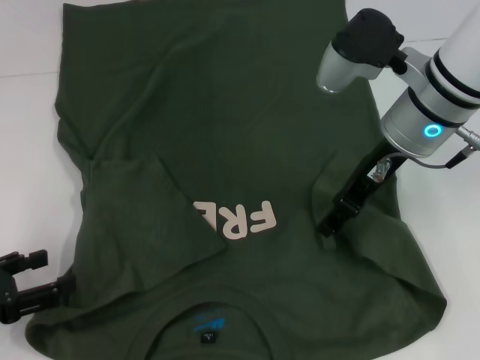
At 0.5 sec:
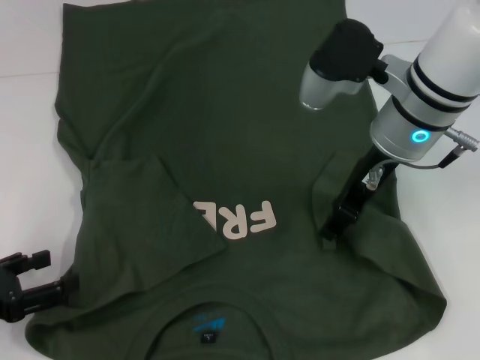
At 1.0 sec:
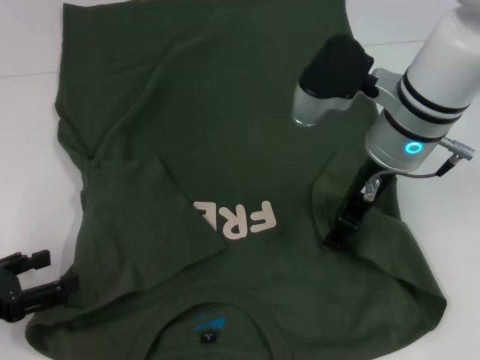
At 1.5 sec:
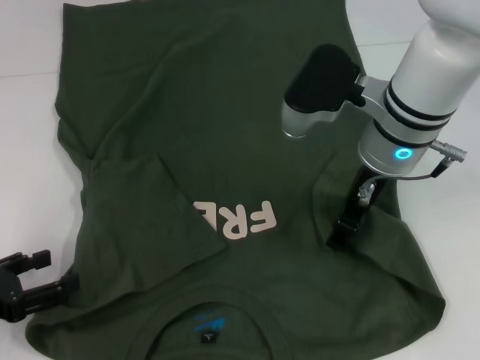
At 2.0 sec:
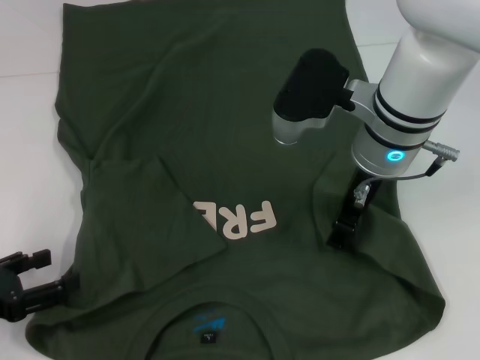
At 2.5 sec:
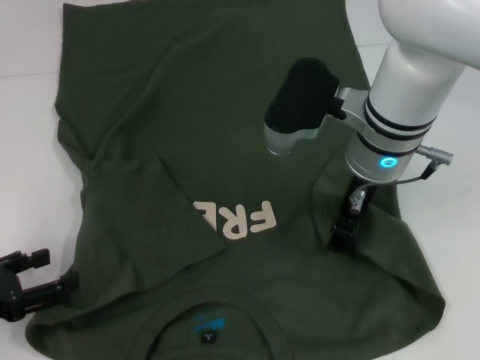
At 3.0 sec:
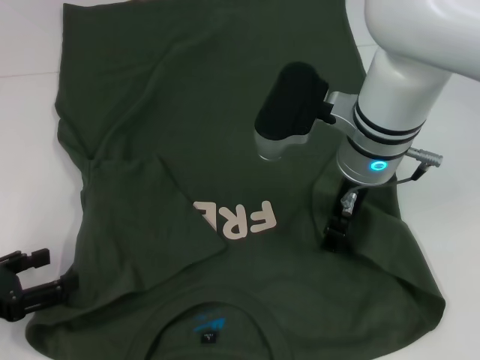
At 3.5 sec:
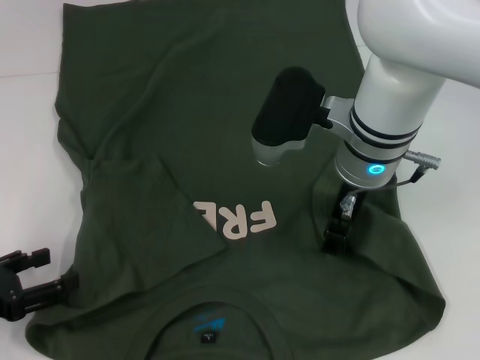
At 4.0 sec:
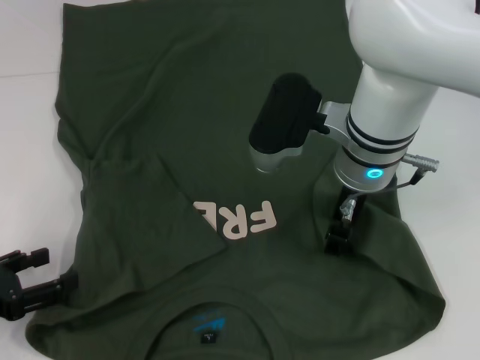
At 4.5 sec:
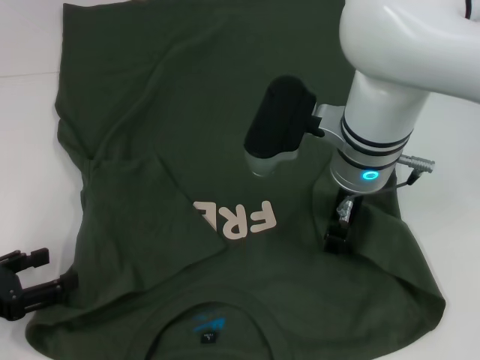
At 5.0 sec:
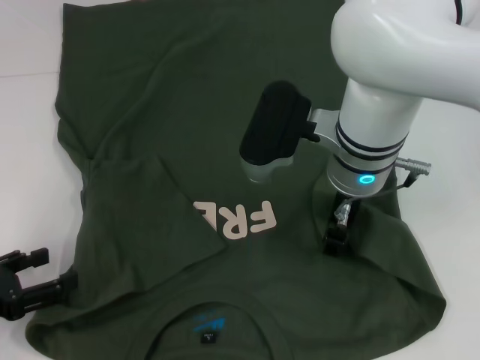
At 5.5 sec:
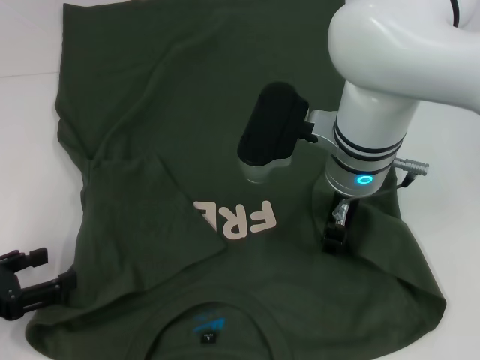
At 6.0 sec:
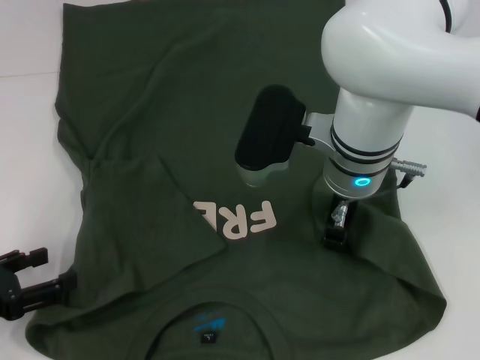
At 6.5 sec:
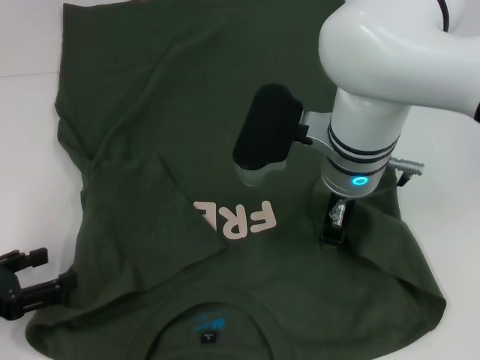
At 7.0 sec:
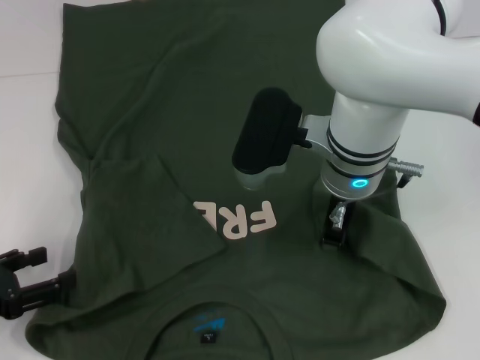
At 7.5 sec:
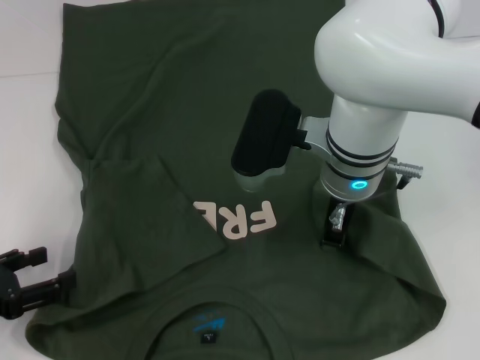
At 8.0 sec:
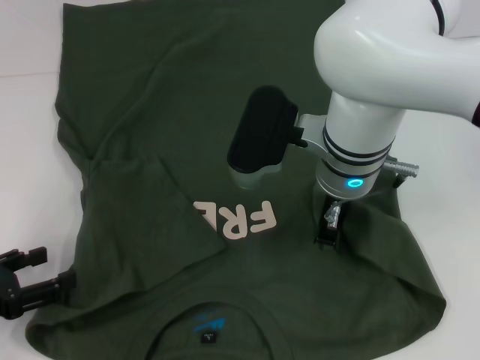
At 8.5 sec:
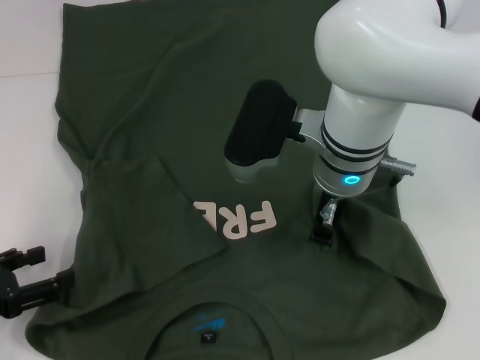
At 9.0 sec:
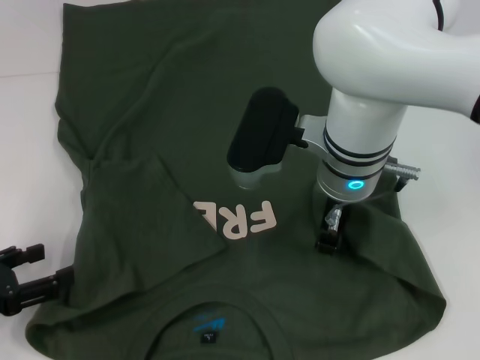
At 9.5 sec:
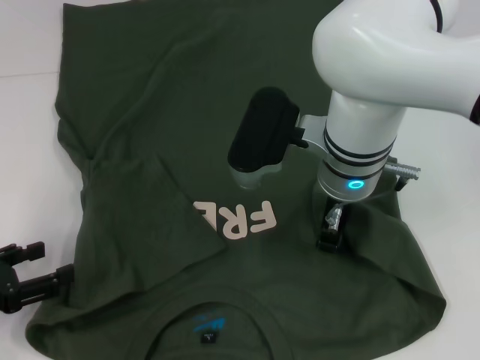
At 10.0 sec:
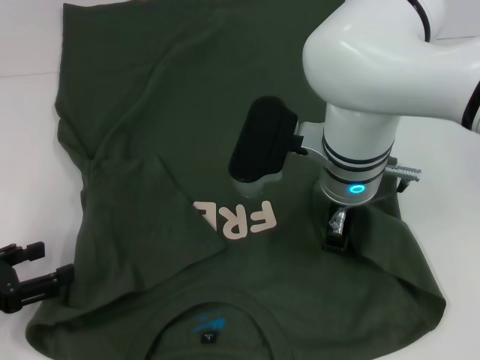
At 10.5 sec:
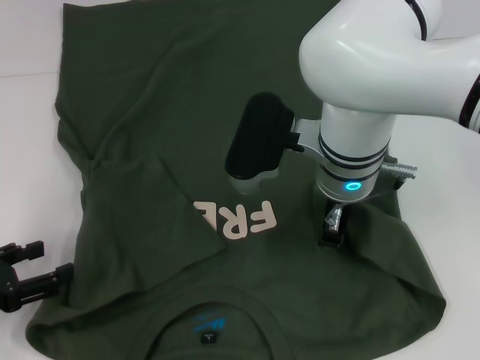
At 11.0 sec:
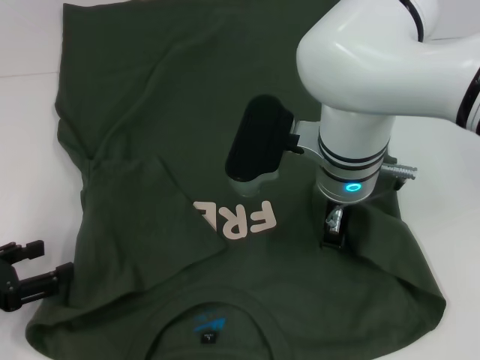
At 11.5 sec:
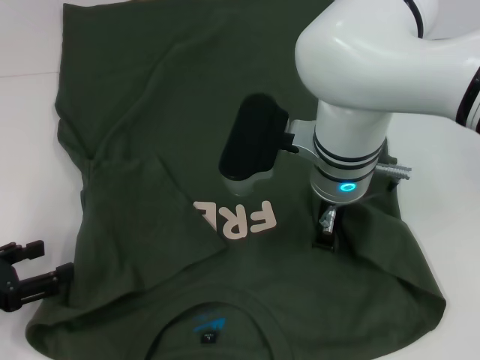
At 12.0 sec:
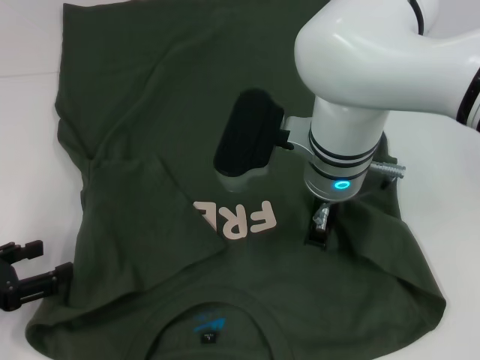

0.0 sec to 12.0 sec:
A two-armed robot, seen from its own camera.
0.0 sec to 2.0 sec: There are only small adjustments of the grippers.
2.0 sec to 6.0 sec: The grippers move only a little.
6.0 sec to 8.0 sec: The right gripper closes up.
8.0 sec to 12.0 sec: The two grippers keep their place.

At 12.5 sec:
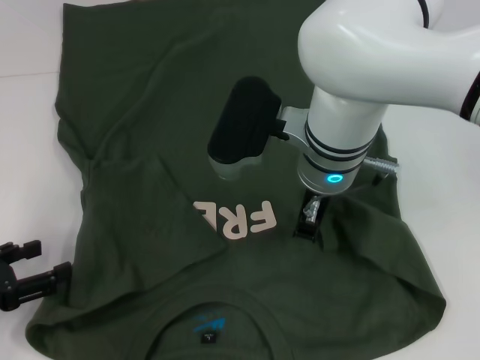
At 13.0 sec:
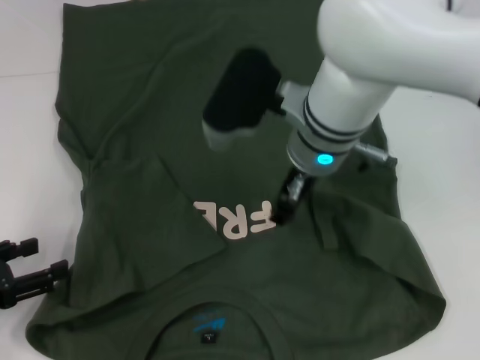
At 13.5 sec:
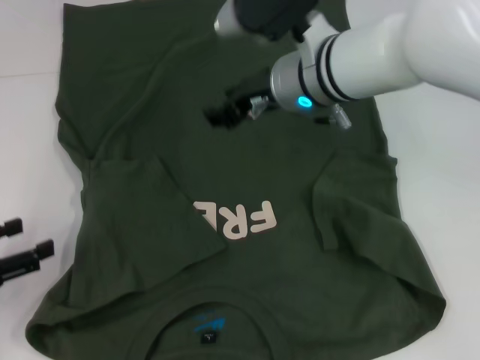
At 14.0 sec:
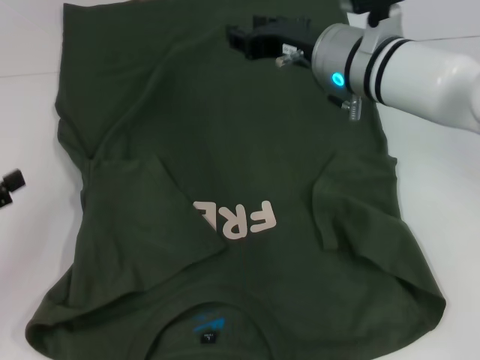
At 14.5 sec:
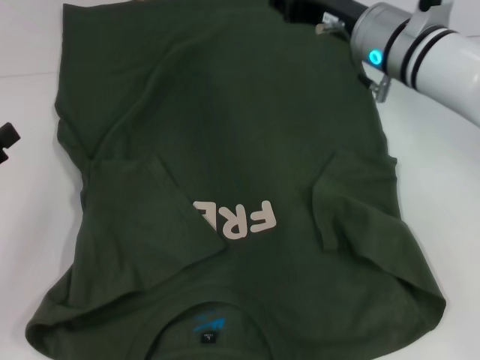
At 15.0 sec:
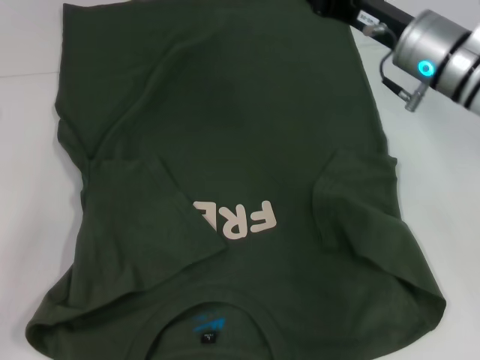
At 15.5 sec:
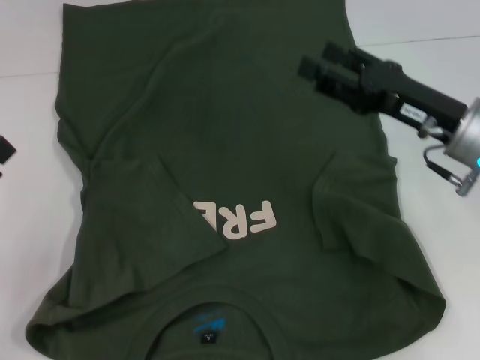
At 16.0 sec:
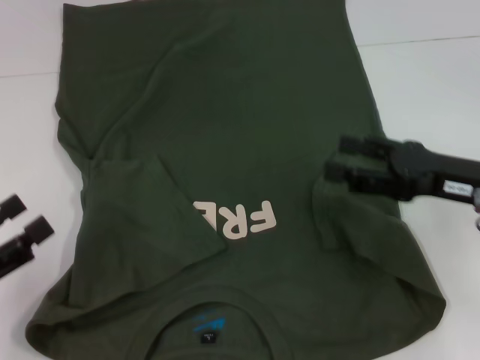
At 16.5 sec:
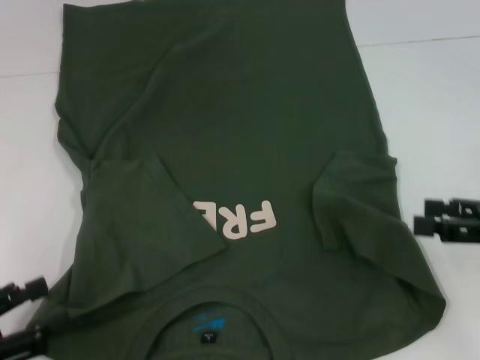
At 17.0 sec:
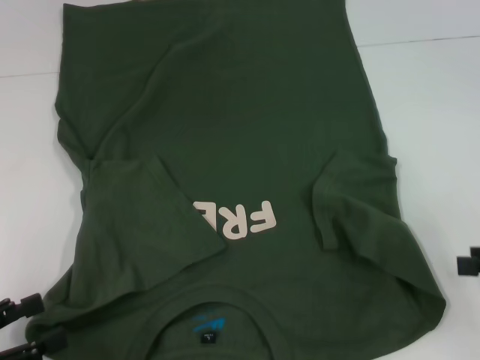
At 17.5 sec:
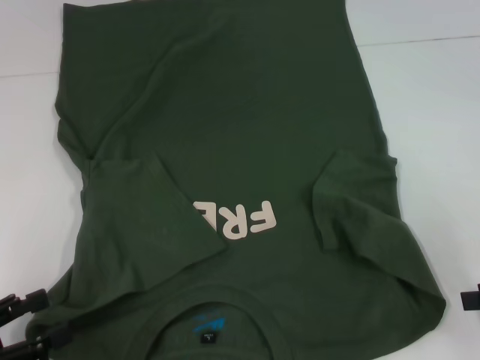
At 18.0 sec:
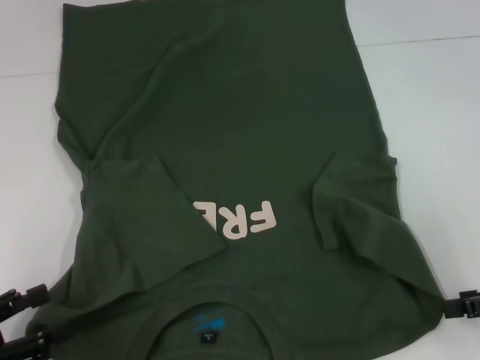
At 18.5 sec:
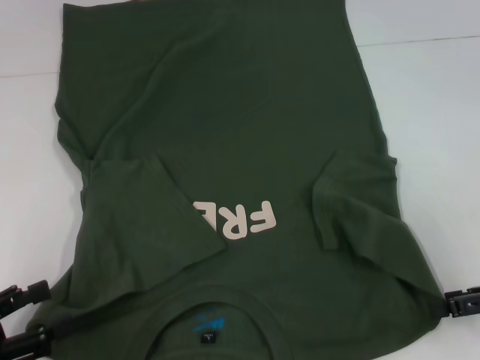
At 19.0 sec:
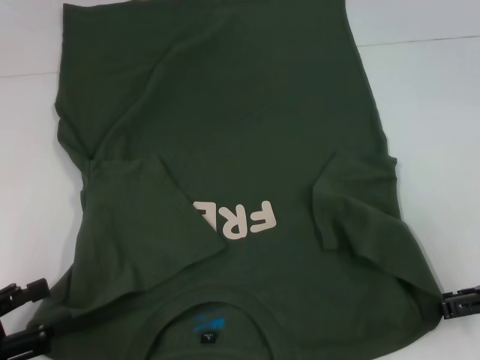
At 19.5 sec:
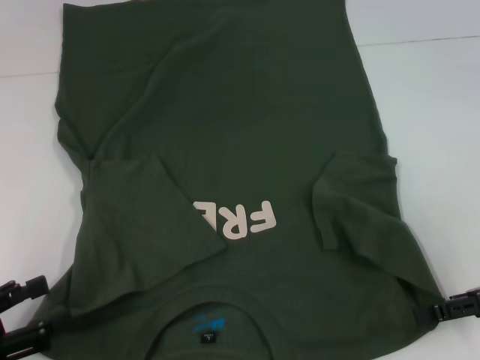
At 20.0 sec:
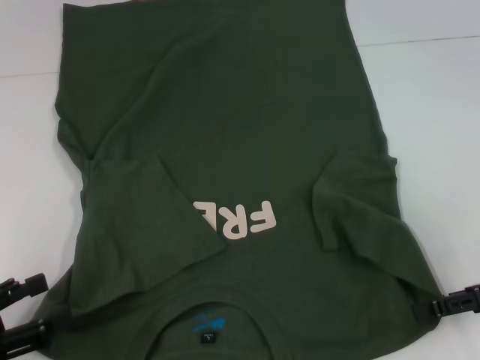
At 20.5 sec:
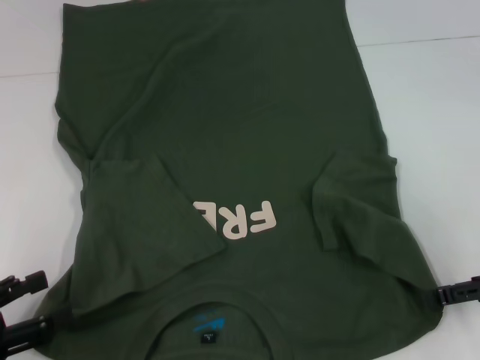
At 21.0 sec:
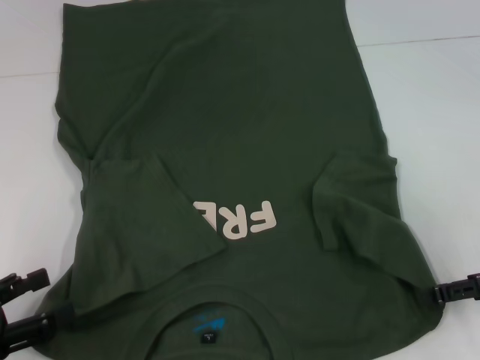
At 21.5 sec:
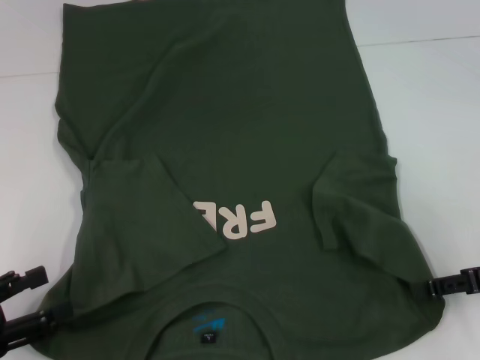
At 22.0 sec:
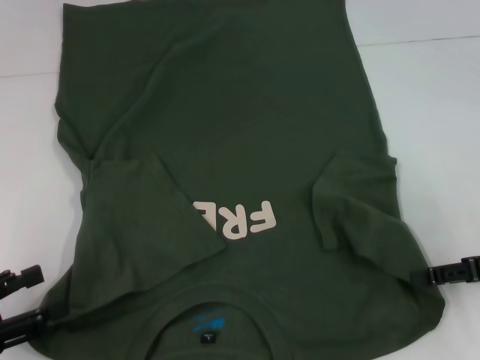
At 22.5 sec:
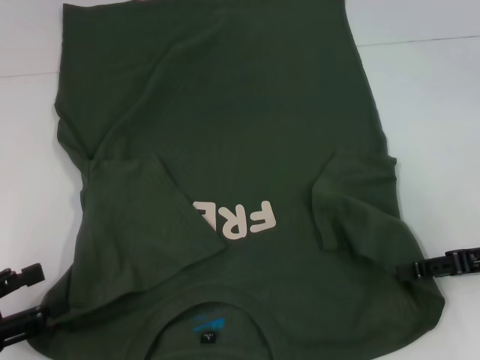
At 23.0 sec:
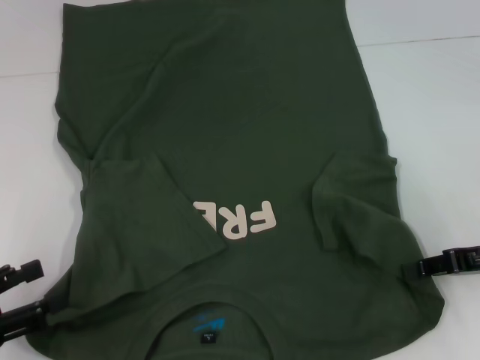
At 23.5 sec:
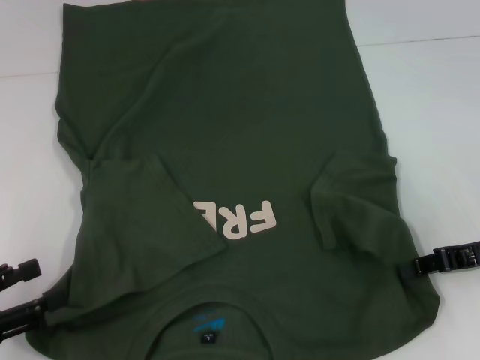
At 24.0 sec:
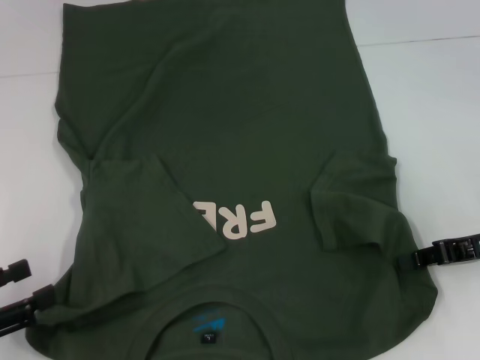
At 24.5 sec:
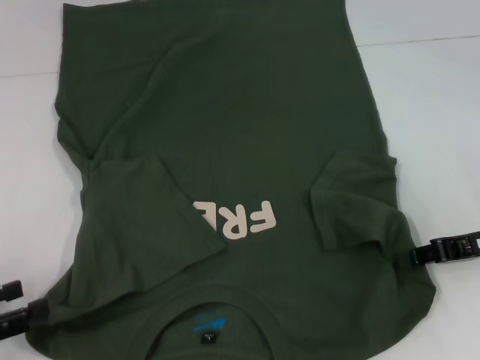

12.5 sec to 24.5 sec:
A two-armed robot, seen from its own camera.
Step, 12.5 sec to 24.0 sec: Grab the bottom right corner with your right hand.
12.5 sec to 14.5 sec: The right gripper shifts roughly 10 cm to the right and forward, and opens its fingers.
14.5 sec to 16.5 sec: The right gripper travels to the right and backward by approximately 25 cm, and opens its fingers. Meanwhile the left gripper travels backward by approximately 10 cm.
18.5 sec to 22.5 sec: The grippers make only small movements.
22.5 sec to 24.5 sec: The right gripper closes its fingers.

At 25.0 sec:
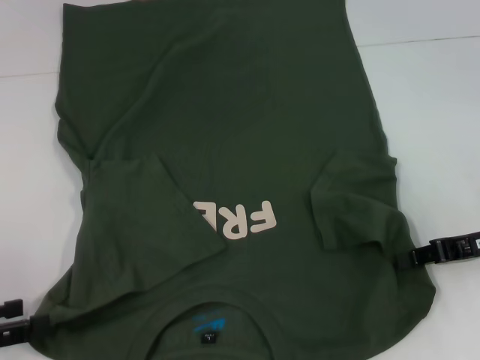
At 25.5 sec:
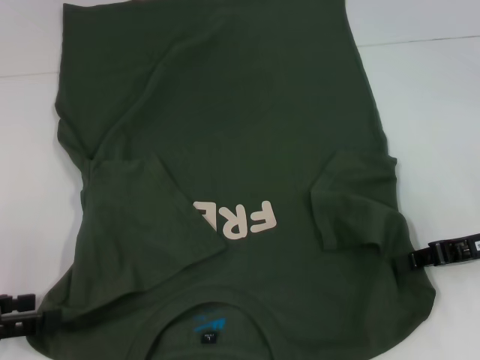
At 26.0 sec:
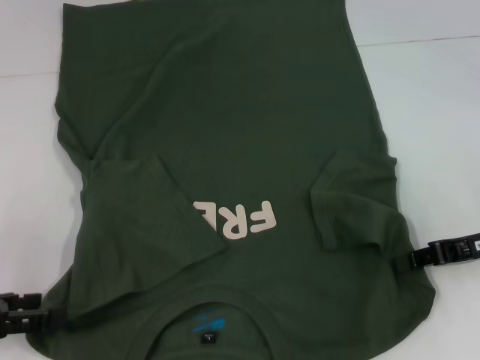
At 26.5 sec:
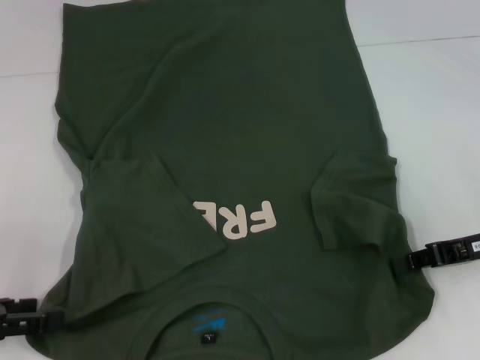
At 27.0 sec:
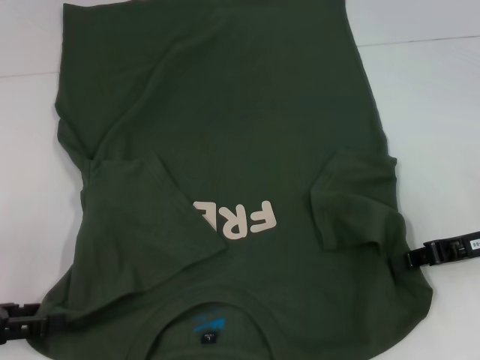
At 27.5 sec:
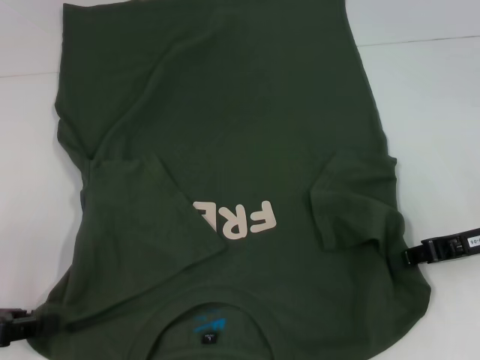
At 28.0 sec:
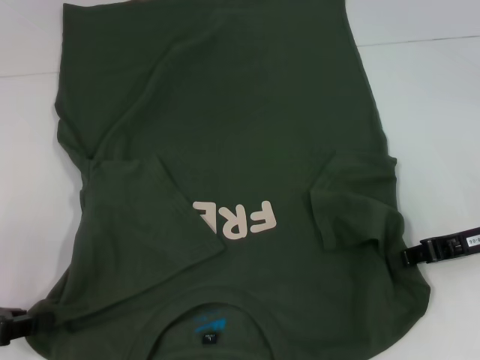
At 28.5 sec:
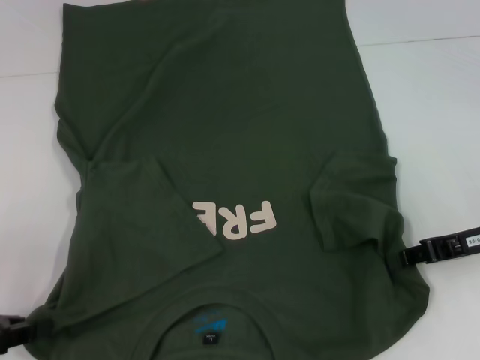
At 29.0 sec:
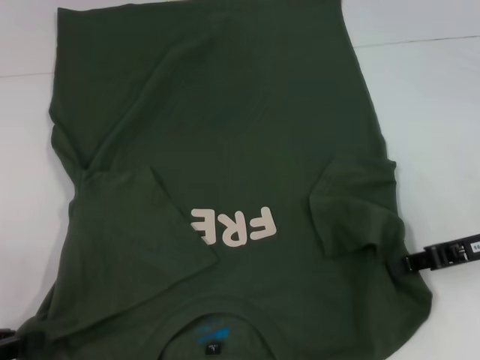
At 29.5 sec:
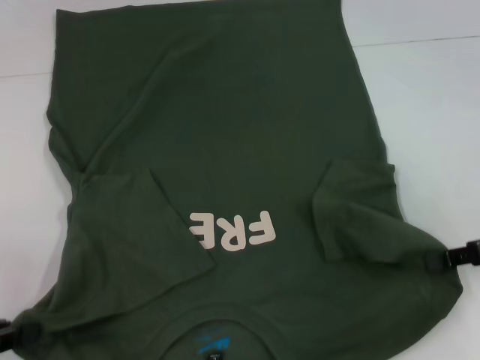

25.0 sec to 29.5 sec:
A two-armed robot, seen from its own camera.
Step, 25.0 sec to 28.0 sec: Grab the bottom left corner with your left hand.
25.0 sec to 27.0 sec: The grippers make only small movements.
27.0 sec to 29.5 sec: The left gripper closes up.
